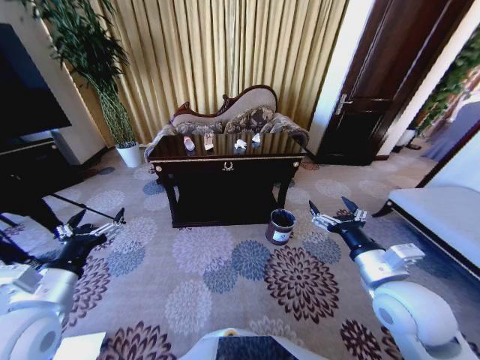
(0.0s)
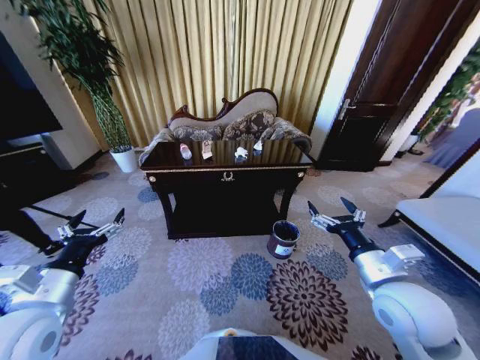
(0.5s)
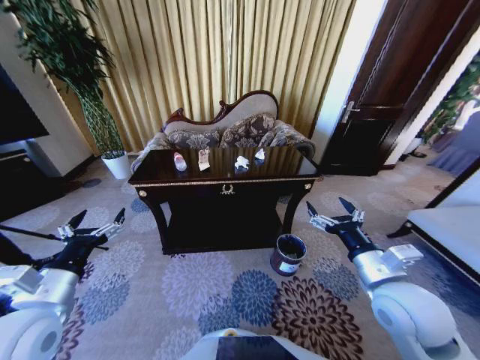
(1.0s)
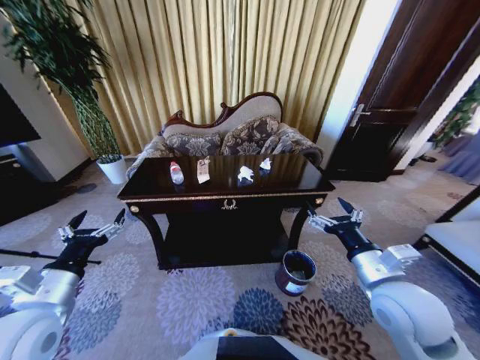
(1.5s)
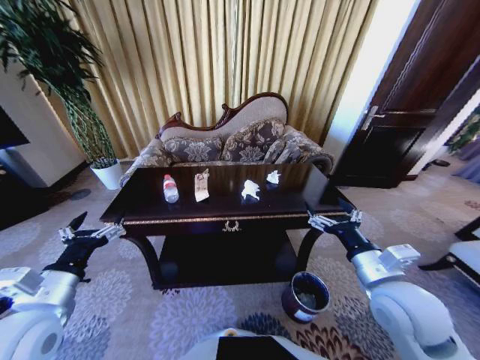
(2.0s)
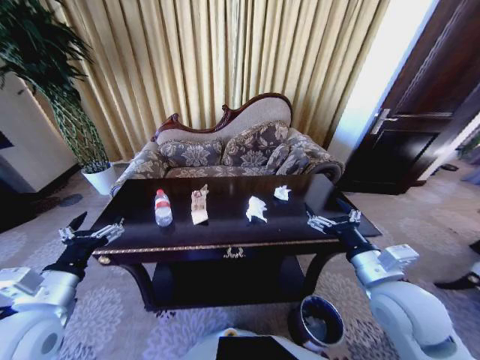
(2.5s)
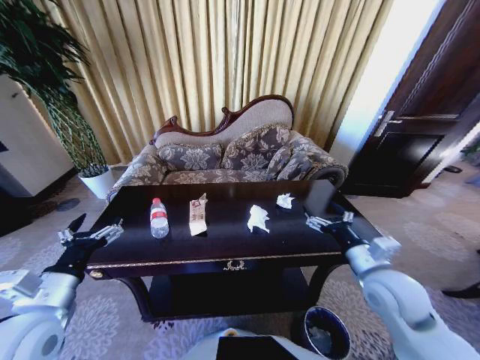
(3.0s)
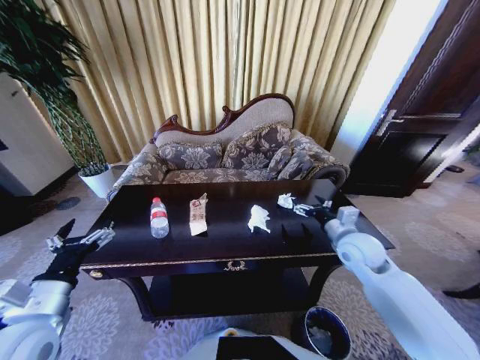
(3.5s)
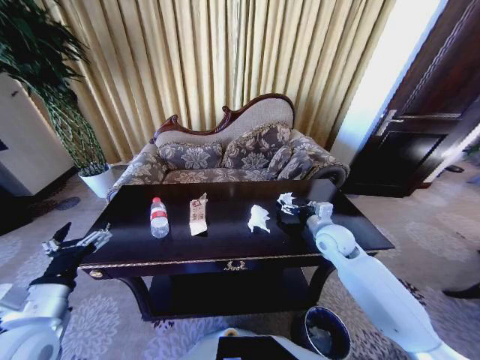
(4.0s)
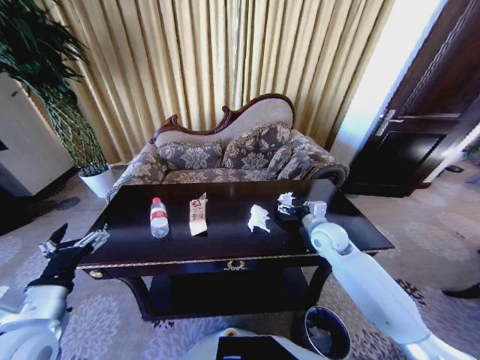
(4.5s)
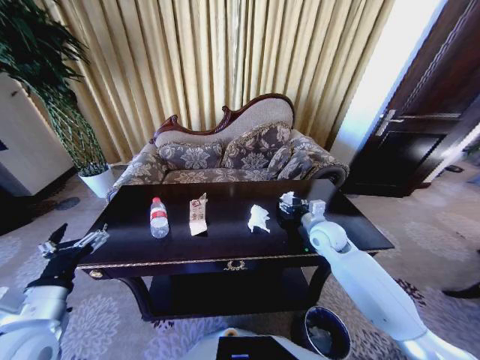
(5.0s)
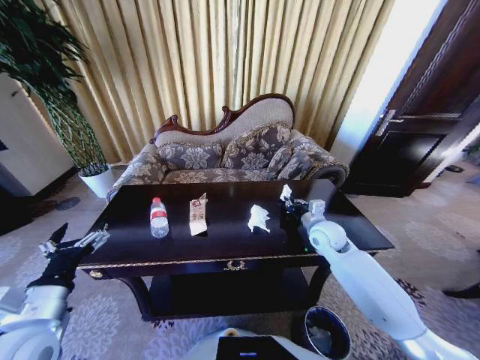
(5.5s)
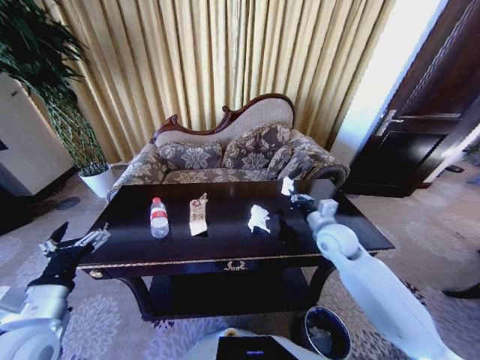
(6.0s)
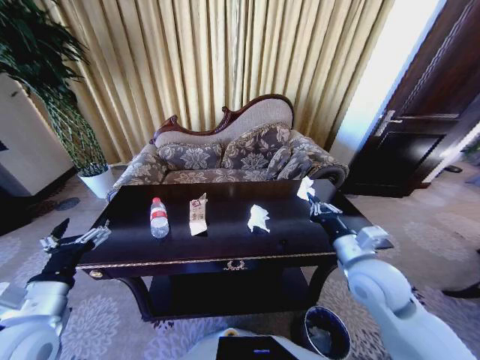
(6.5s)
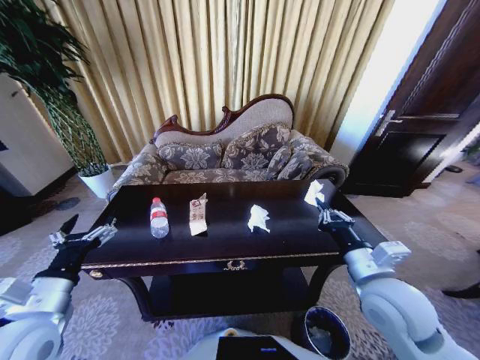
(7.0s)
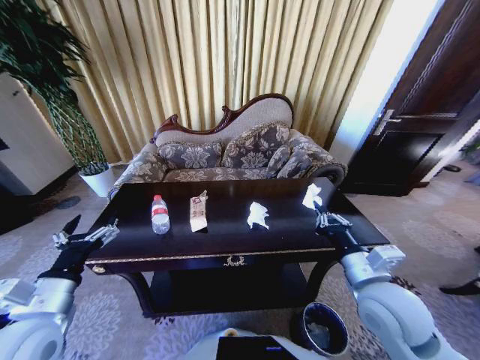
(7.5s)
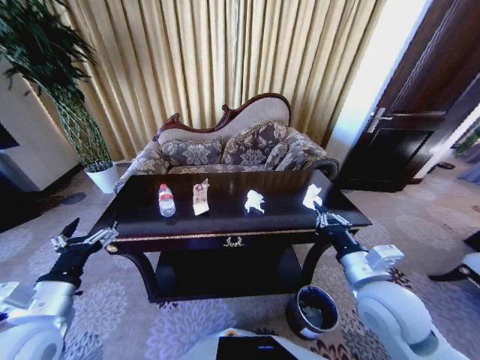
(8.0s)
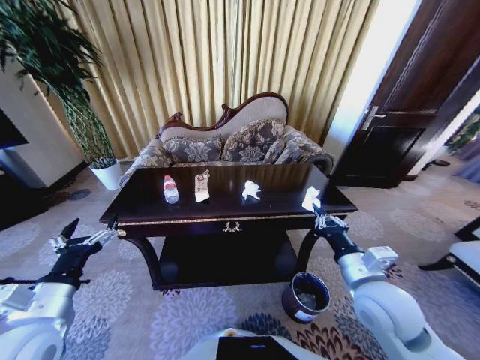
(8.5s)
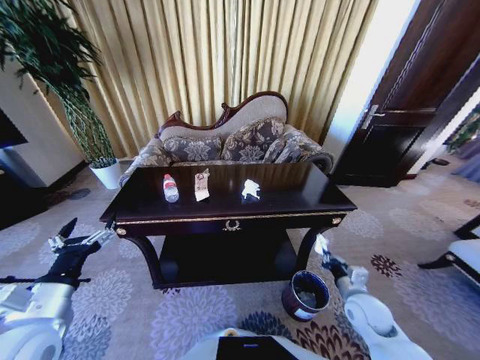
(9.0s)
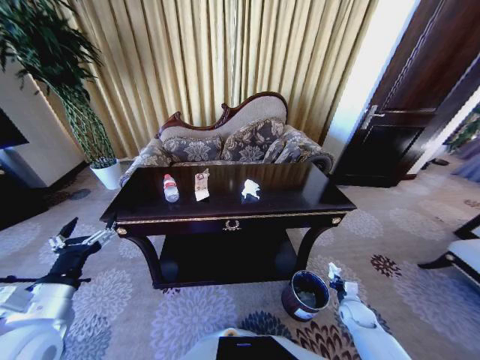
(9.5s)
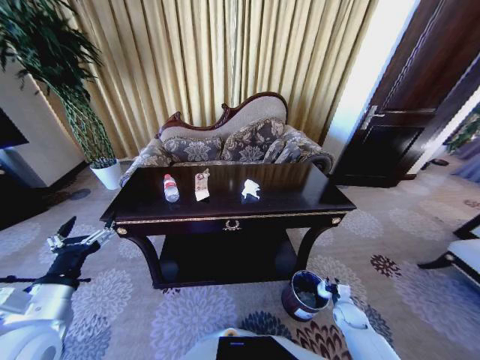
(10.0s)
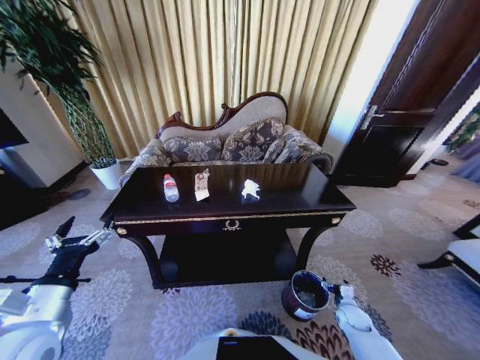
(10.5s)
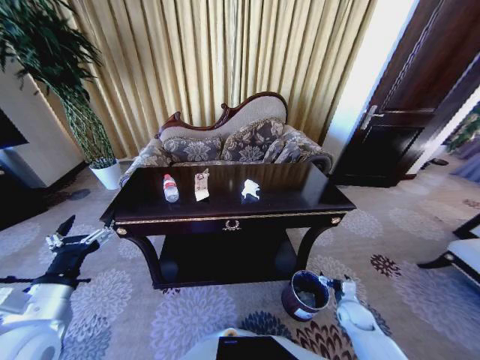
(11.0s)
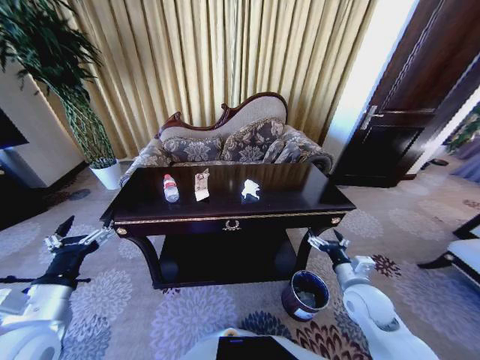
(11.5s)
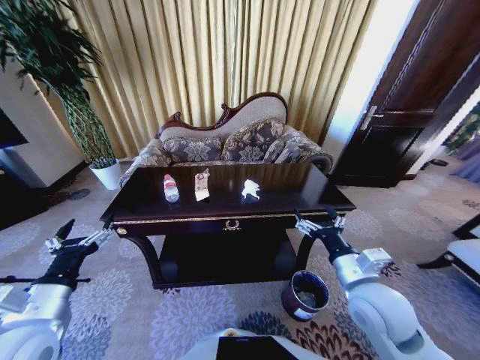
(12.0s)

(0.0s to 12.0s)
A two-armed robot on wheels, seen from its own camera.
Task of the whole recording: Move to the front of the table and place the trash on the table into the trash bin.
2.0s - 4.0s: The right gripper heads forward, covering approximately 20 cm.
4.0s - 6.0s: The right gripper closes up.
6.0s - 8.0s: The right gripper shifts roughly 15 cm backward.
8.0s - 10.0s: The right gripper is displaced downward and to the right by some 40 cm.
10.0s - 12.0s: The right gripper heads upward and to the left, covering roughly 40 cm, and opens up.

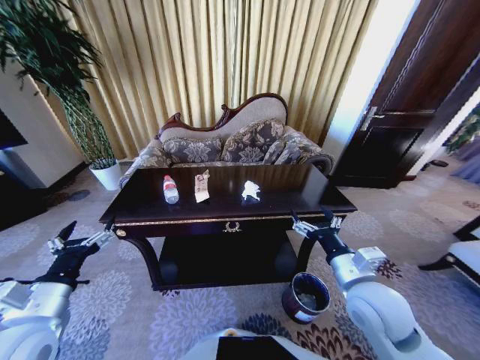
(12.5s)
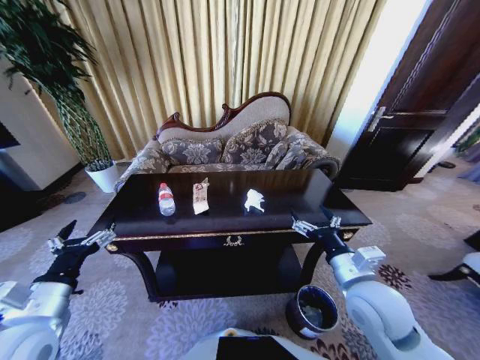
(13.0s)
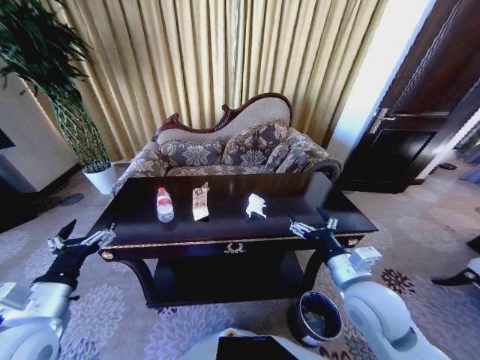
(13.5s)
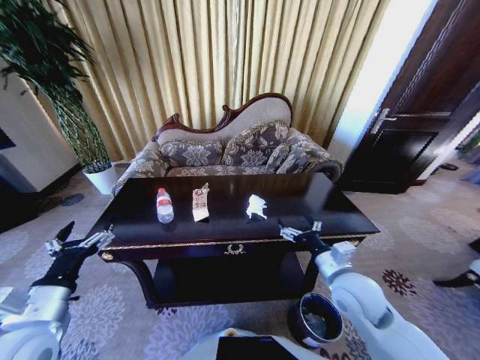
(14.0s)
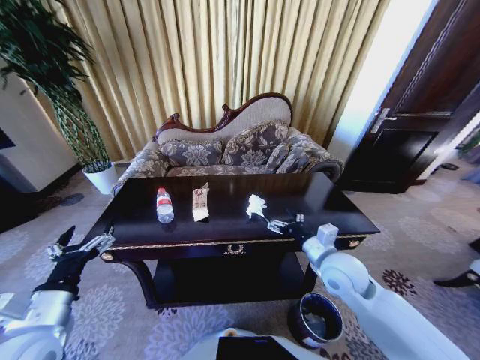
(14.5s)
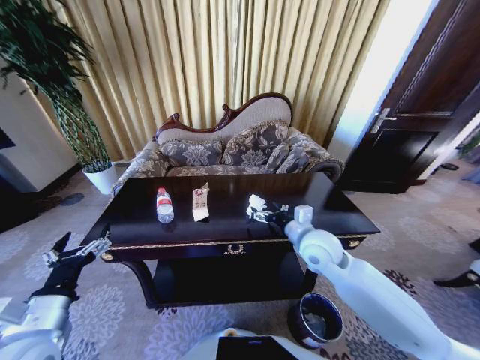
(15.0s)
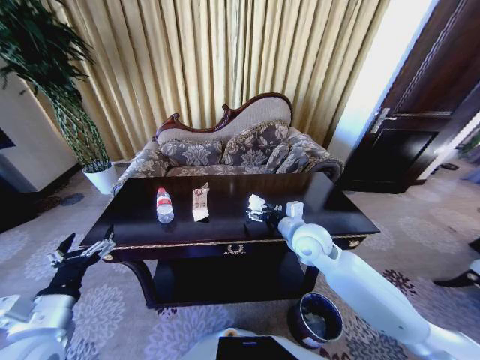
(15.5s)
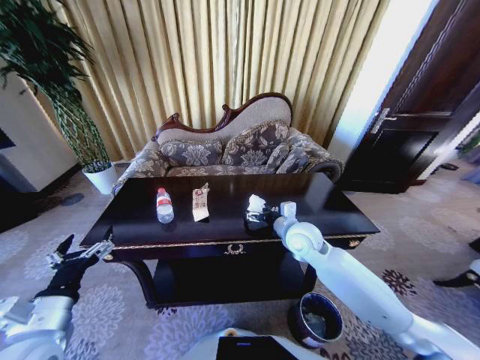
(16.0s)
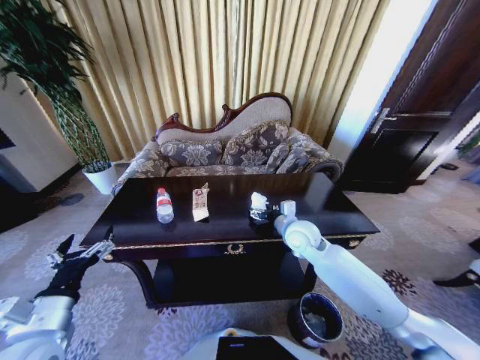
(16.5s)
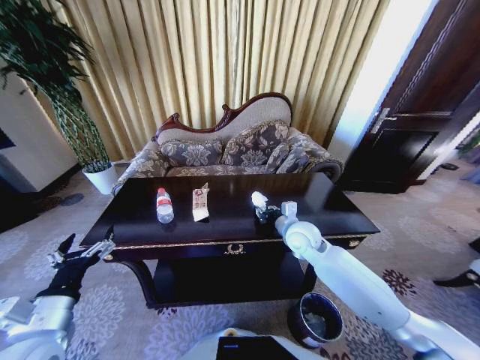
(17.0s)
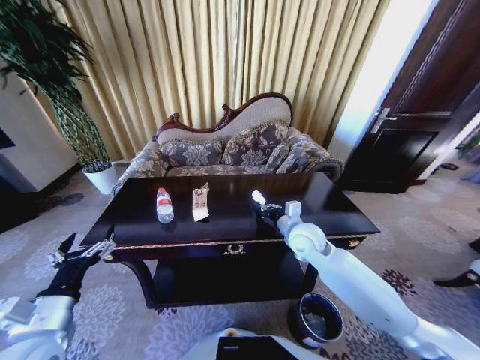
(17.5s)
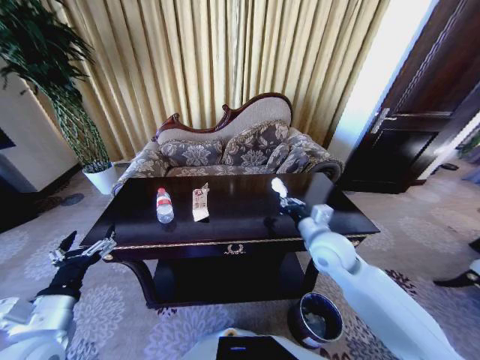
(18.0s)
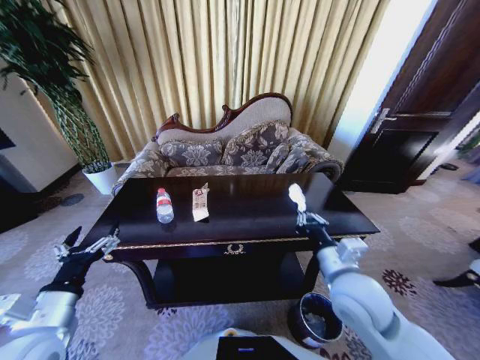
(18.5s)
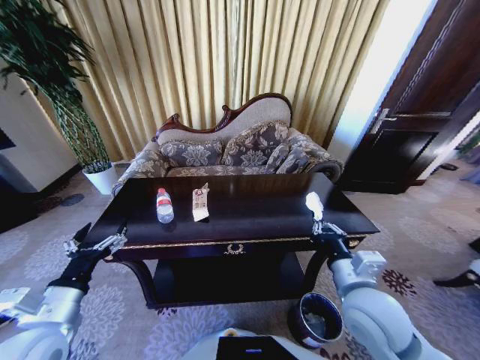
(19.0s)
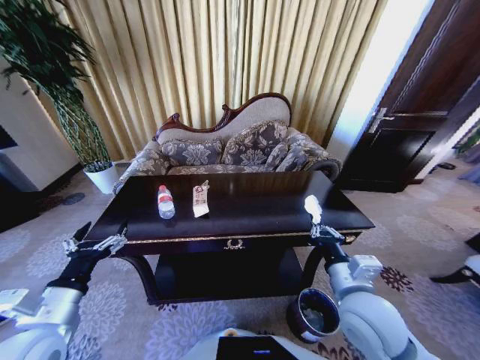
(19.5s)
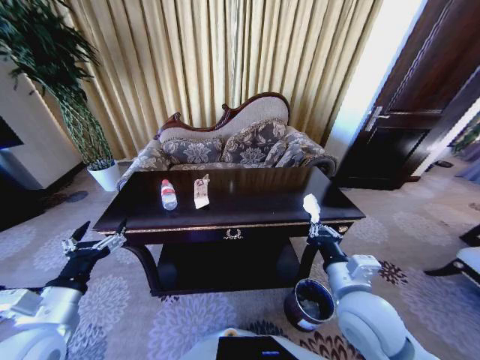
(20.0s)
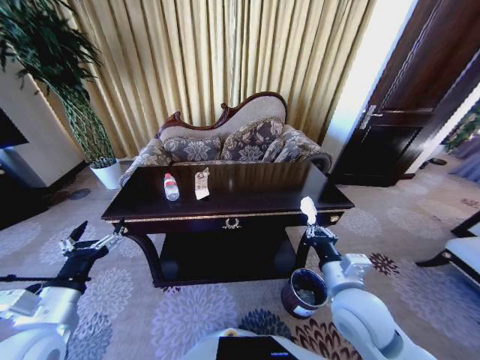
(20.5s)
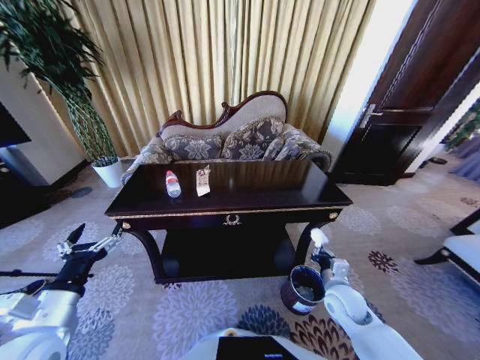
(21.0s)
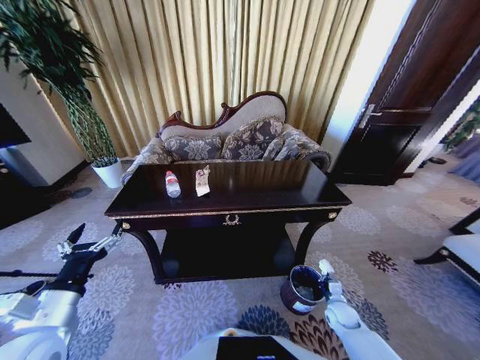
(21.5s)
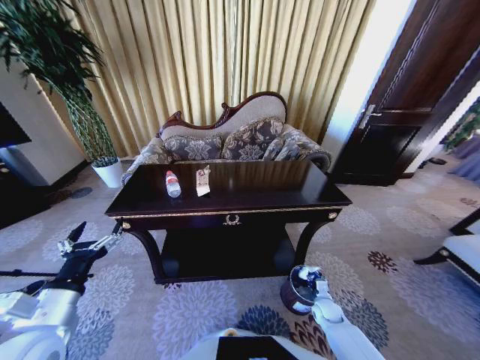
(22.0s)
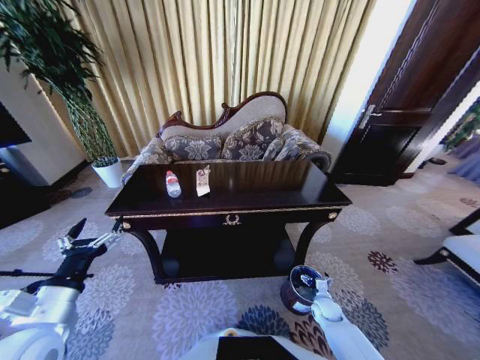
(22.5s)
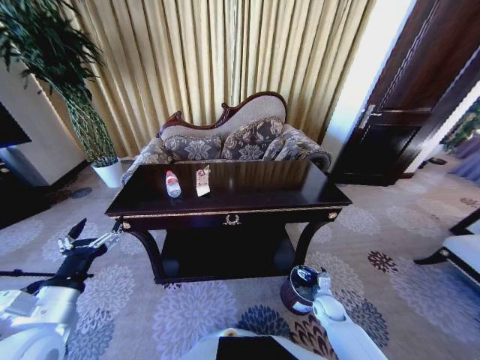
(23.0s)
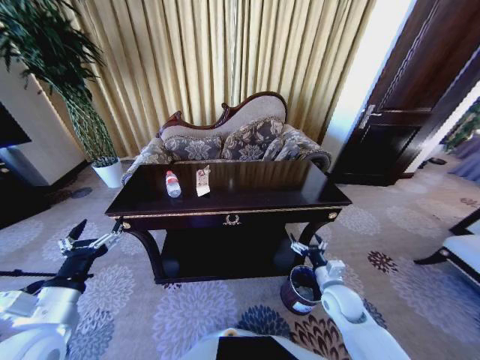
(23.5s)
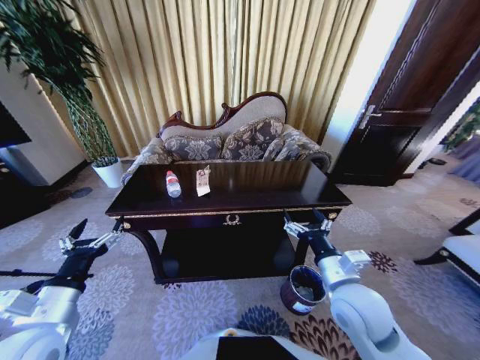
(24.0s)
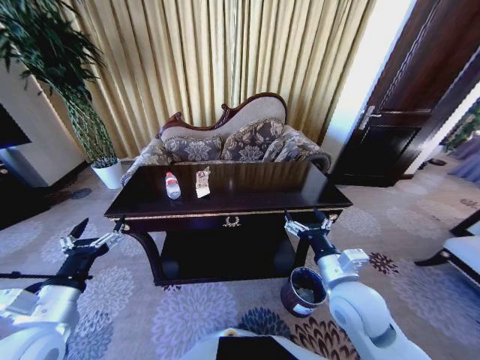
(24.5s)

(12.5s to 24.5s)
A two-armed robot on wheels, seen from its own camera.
Task of the whole recording: Move to the front of the table and place the trash on the table into the trash bin.
12.5s - 14.5s: The right gripper shifts some 10 cm forward.
14.5s - 16.5s: The right gripper heads forward and to the left, covering some 10 cm.
16.5s - 18.5s: The right gripper goes roughly 15 cm backward, and closes.
20.5s - 22.5s: The right gripper heads downward, covering roughly 35 cm, and opens.
22.5s - 24.5s: The right gripper is displaced upward by approximately 35 cm.

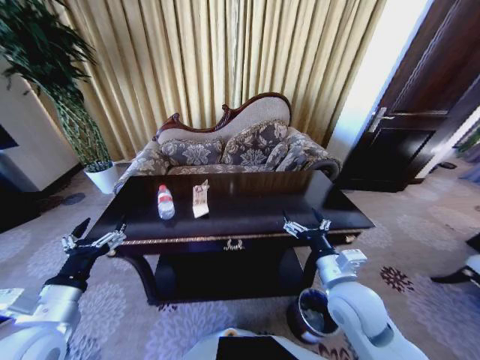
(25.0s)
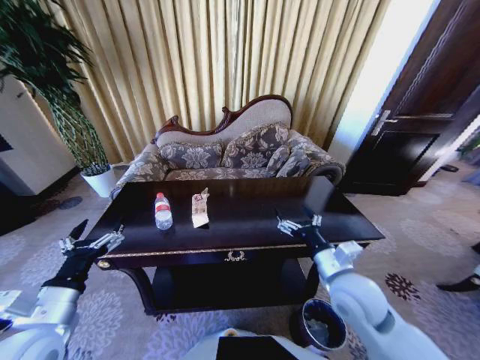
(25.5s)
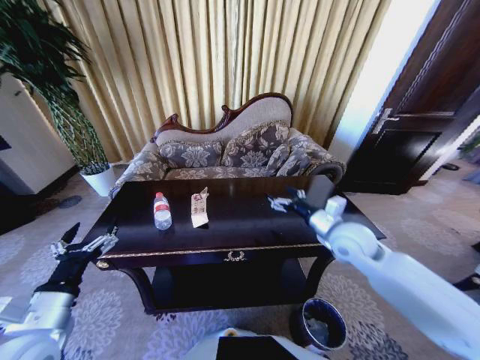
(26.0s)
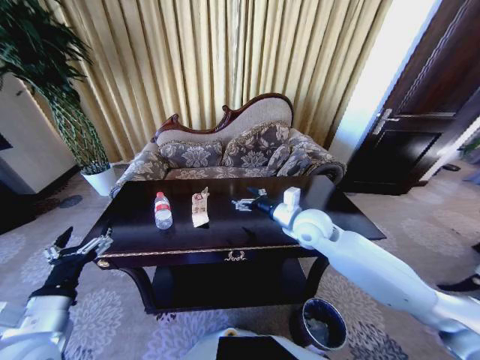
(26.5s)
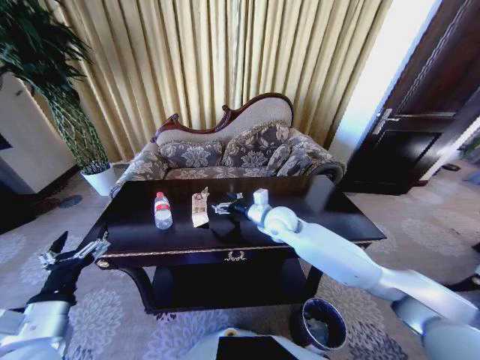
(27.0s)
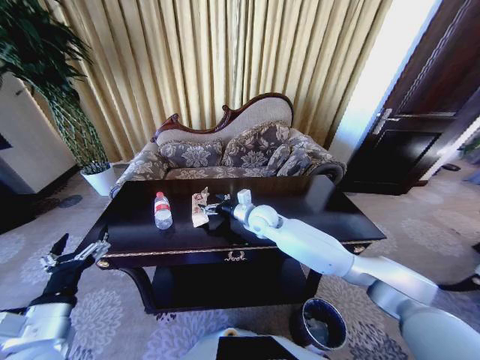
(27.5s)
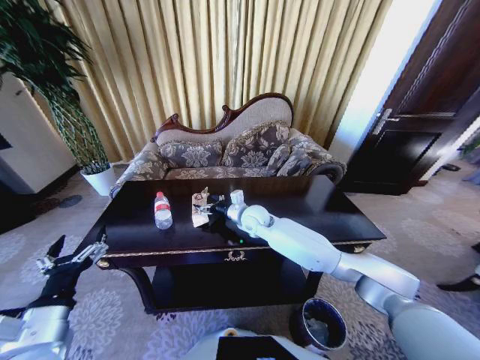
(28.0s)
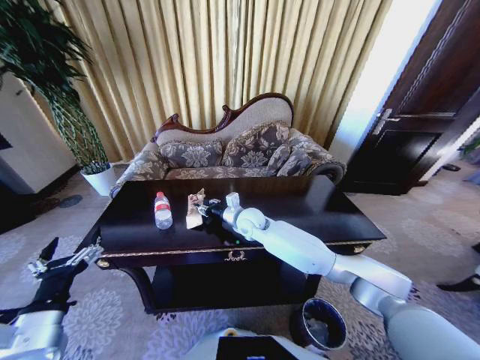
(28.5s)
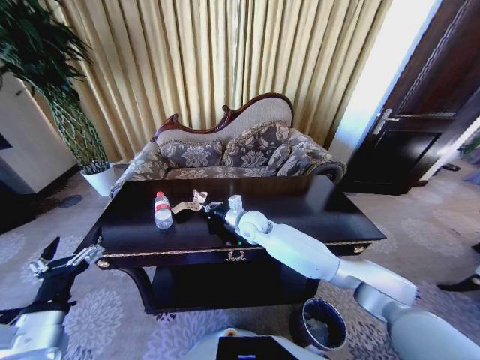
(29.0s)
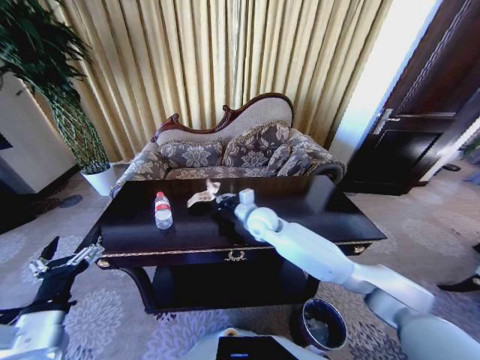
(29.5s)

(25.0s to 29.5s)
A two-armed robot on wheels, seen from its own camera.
Task of the whole recording: Move to the front of the table and place the trash on the table into the trash bin.
25.0s - 27.0s: The right gripper goes some 25 cm forward and to the left.
27.0s - 29.5s: The right gripper closes its fingers.
